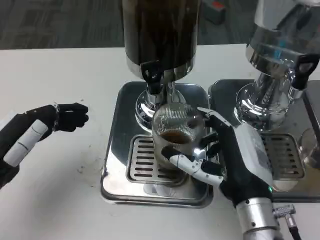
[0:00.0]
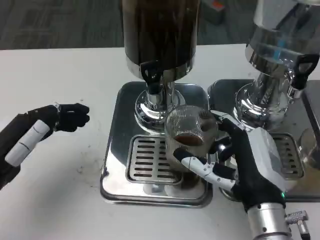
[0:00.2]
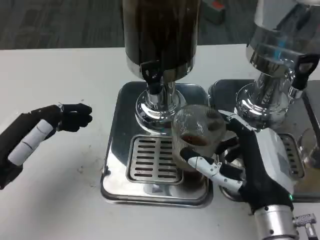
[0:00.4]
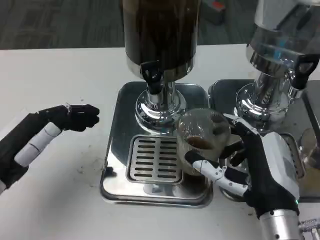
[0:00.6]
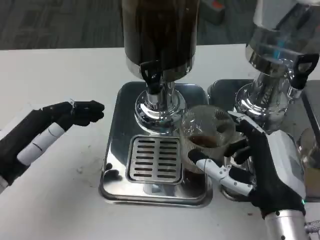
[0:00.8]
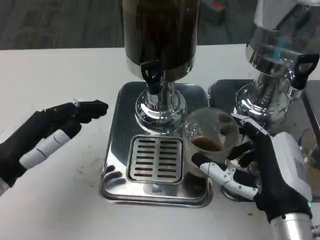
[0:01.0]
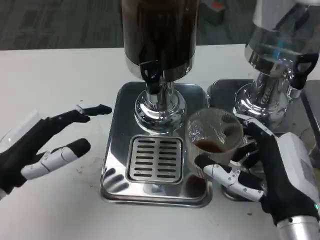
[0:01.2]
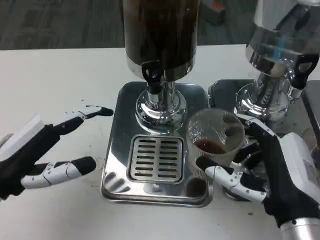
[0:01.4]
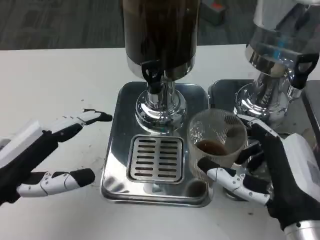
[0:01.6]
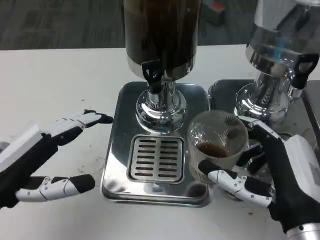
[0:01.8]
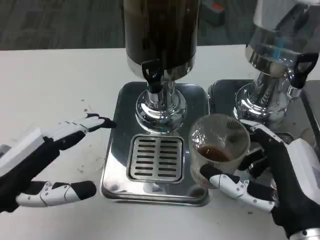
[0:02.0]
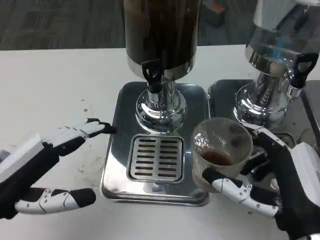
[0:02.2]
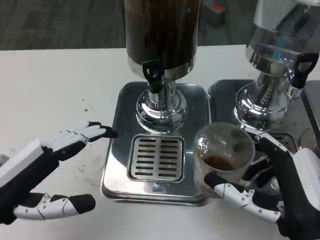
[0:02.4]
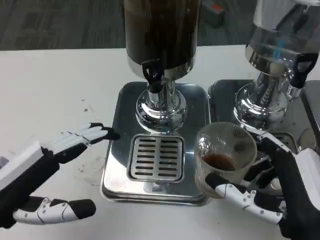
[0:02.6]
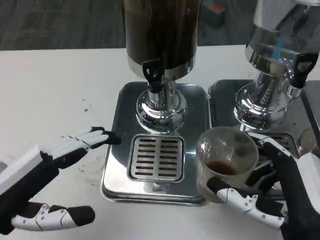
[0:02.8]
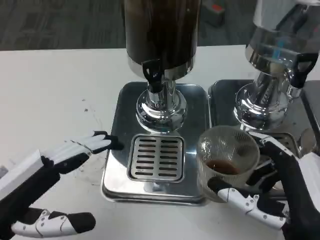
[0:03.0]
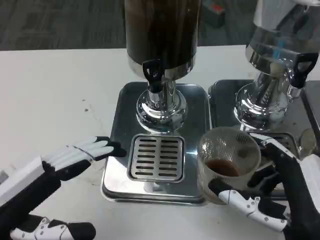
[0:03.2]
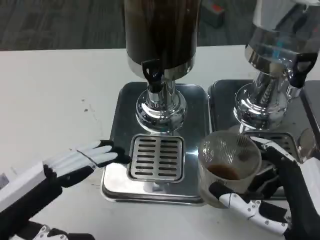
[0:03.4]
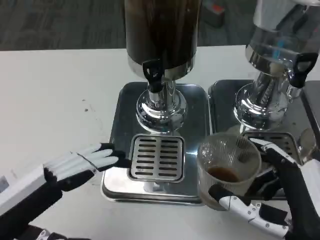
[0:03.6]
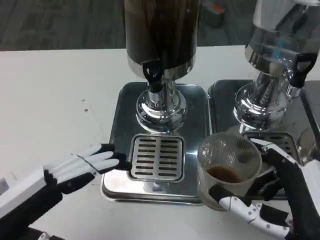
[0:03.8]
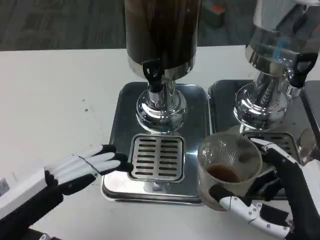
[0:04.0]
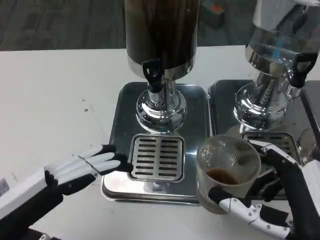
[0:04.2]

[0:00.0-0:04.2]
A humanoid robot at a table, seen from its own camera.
Task of the whole recording: Grasp the cup under the faucet to collect the drink, then remove the cup.
0:00.0 to 0:01.4: The right hand changes place by roughly 5 cm.
0:02.8 to 0:04.2: The hands move only a little.

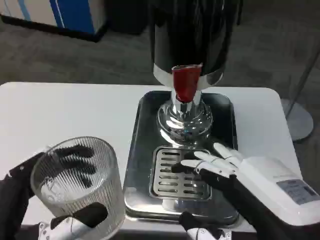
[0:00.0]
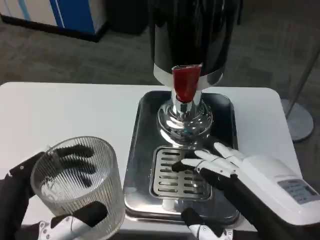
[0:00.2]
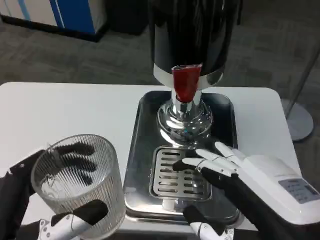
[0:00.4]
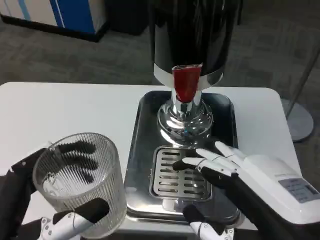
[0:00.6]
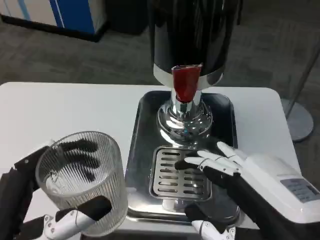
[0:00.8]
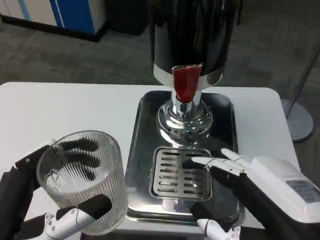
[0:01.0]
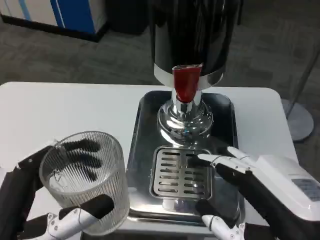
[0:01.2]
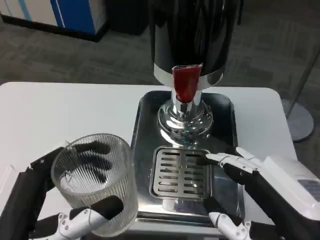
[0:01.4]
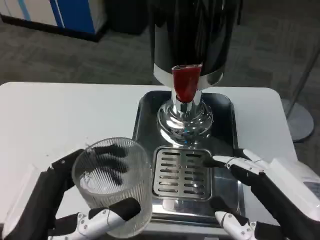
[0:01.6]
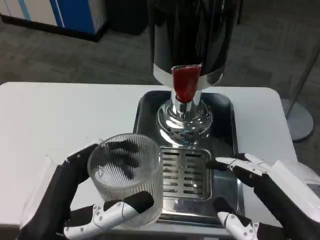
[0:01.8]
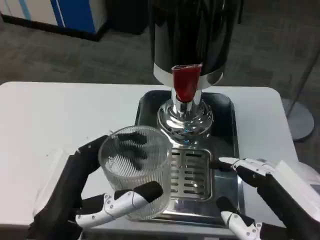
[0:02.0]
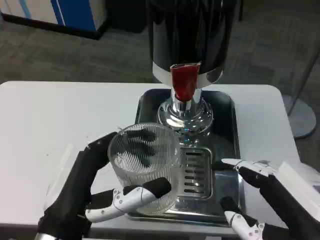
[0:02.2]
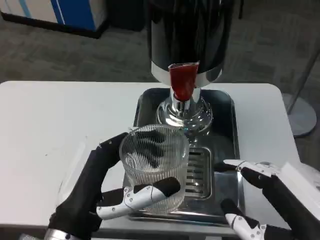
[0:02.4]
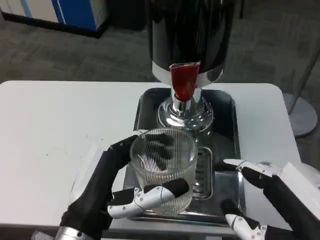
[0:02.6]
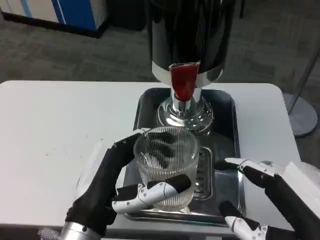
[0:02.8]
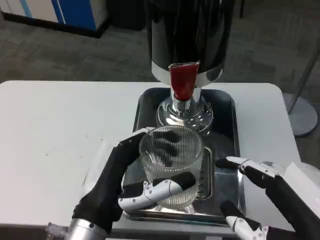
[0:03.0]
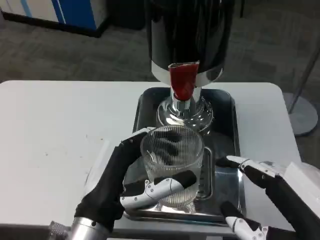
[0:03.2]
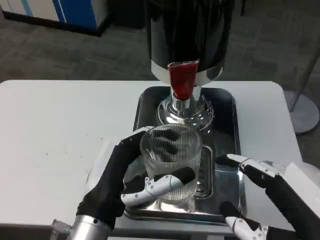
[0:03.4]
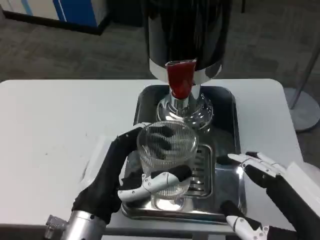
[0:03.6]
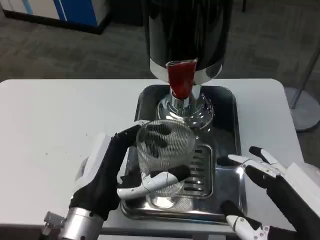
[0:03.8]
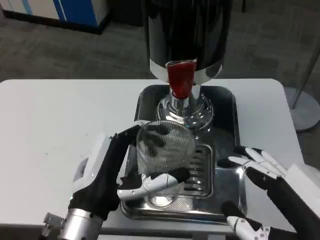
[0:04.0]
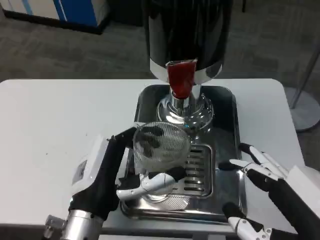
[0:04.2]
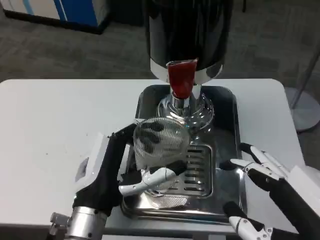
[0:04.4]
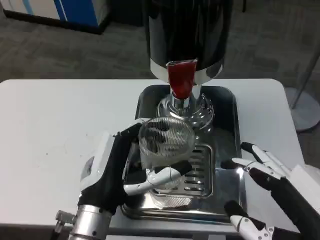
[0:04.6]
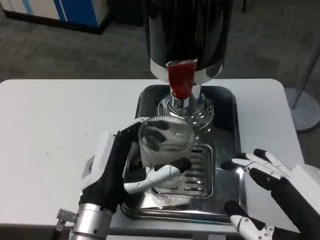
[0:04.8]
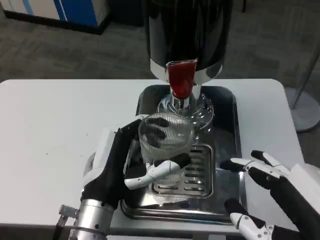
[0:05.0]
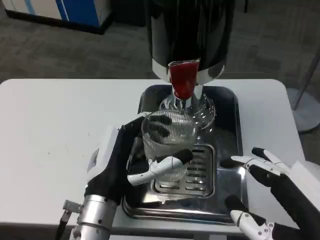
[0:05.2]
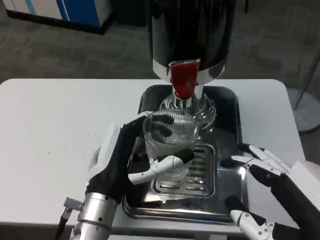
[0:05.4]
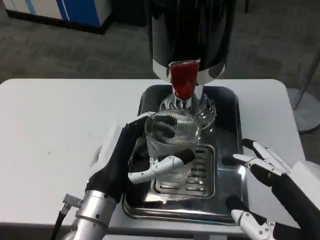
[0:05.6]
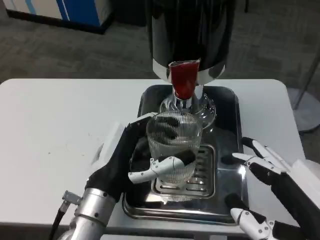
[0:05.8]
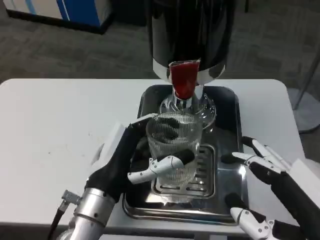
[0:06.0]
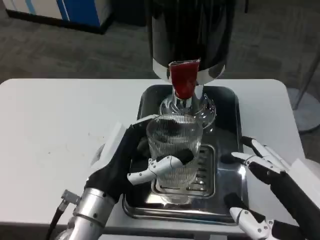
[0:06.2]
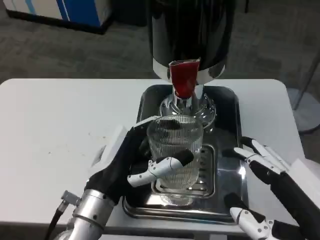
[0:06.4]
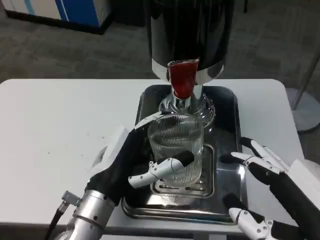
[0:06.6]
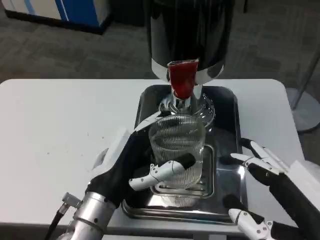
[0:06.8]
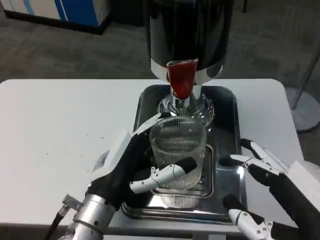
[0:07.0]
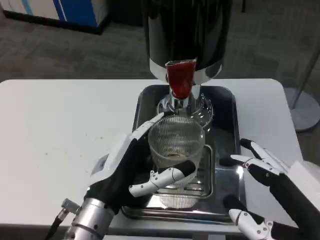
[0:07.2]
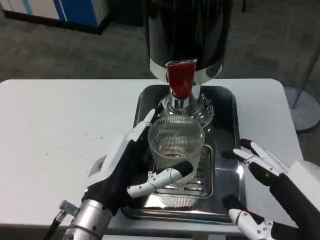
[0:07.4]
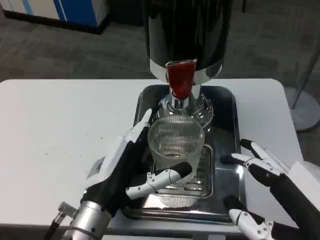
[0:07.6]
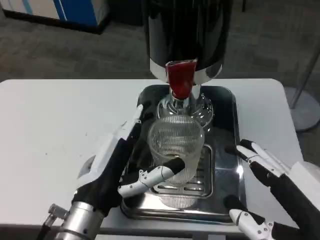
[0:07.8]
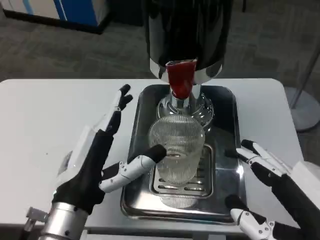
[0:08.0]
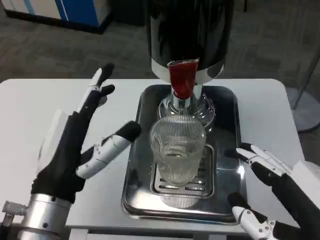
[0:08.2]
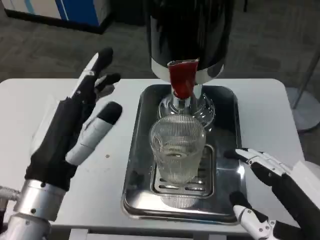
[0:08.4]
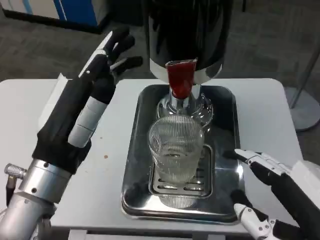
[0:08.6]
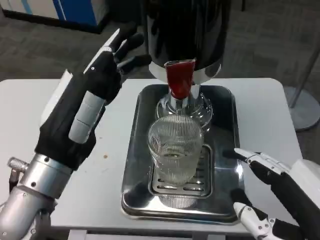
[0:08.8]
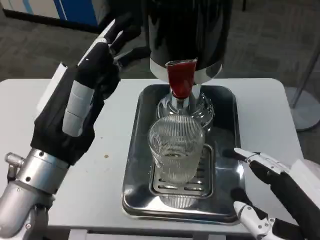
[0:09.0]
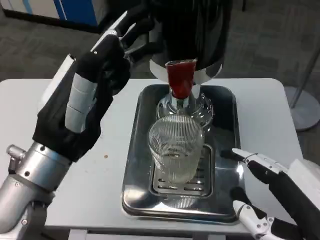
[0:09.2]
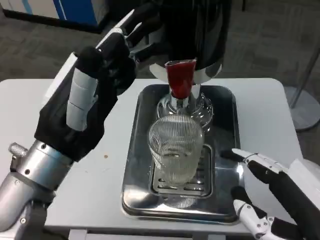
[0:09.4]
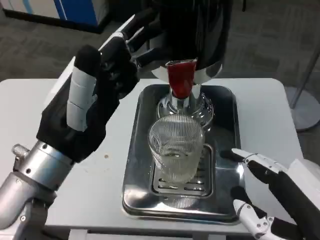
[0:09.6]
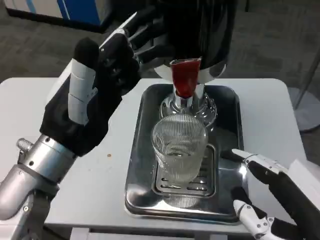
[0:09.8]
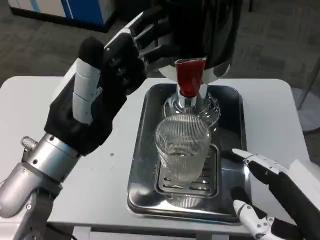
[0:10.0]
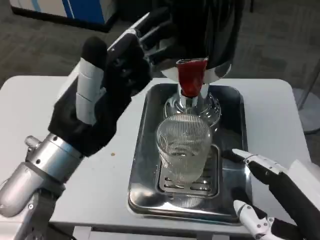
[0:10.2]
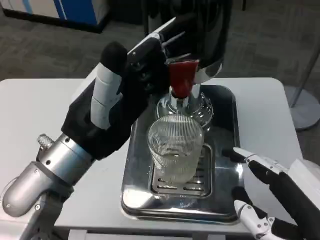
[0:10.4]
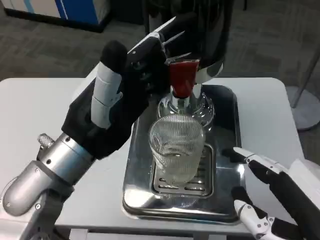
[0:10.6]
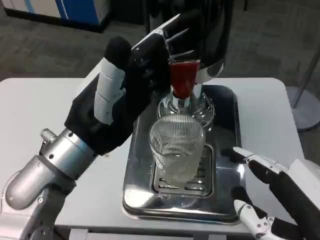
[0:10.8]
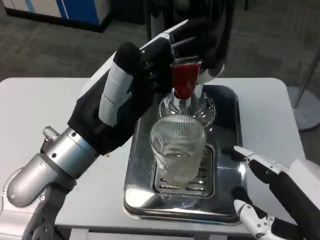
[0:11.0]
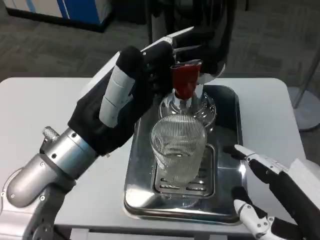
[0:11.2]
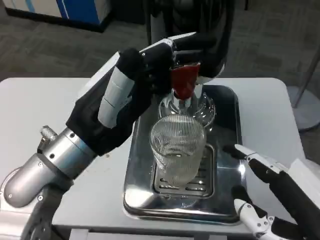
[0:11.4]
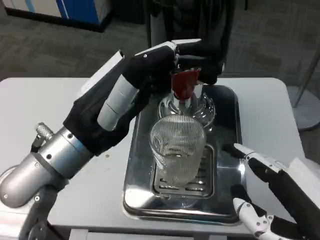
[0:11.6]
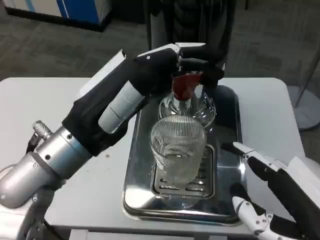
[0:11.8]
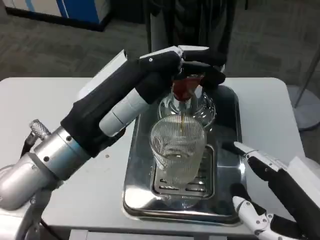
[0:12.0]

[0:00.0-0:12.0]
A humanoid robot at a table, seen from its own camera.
Task of the whole recording: Grasp the cup under the faucet to collect the drink, then remove the cup.
0:01.6 to 0:03.0: The left hand goes roughly 10 cm forward and to the right.
0:06.0 to 0:07.6: The hands move only a little.
0:07.6 to 0:09.0: The left hand moves upward, roughly 10 cm.

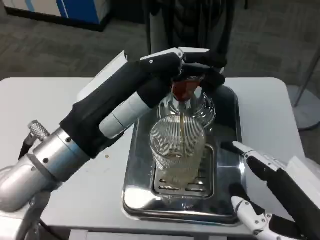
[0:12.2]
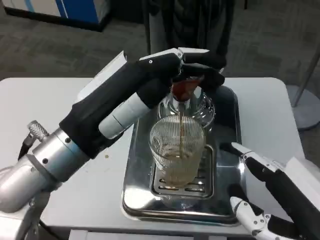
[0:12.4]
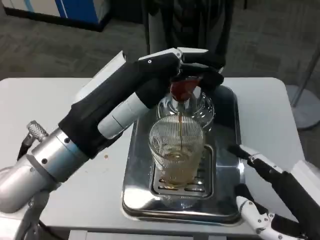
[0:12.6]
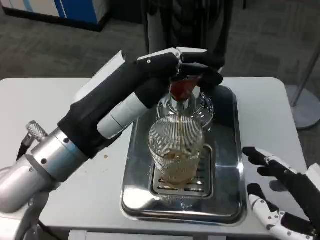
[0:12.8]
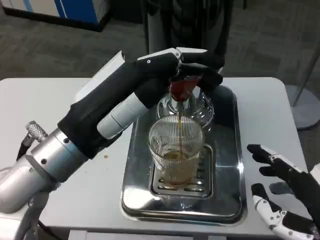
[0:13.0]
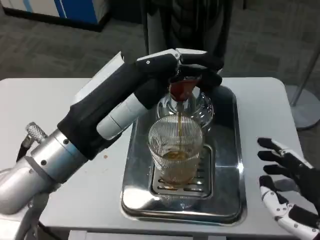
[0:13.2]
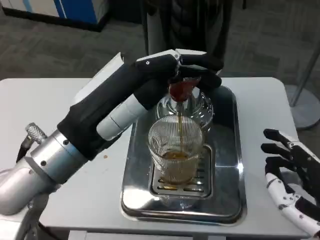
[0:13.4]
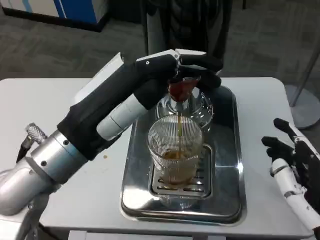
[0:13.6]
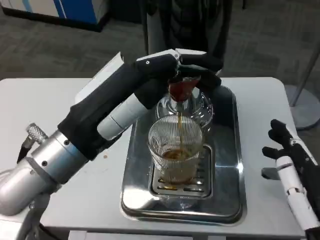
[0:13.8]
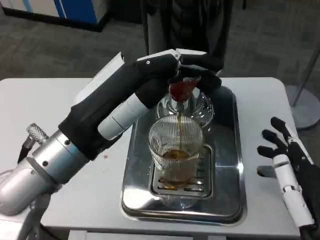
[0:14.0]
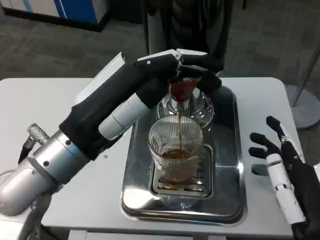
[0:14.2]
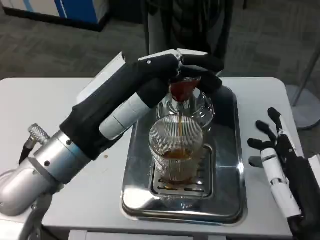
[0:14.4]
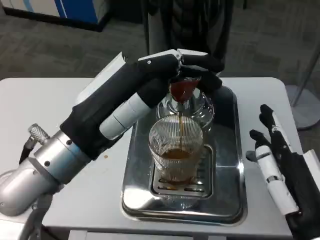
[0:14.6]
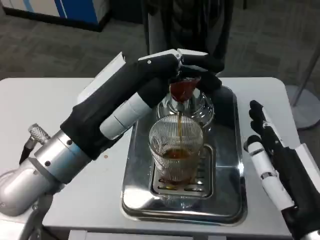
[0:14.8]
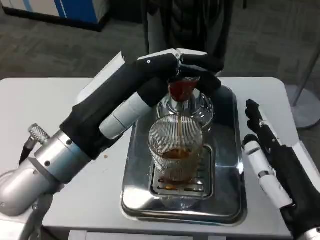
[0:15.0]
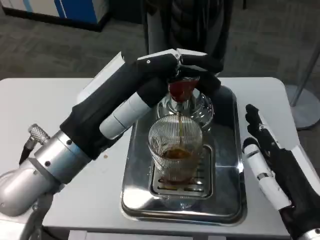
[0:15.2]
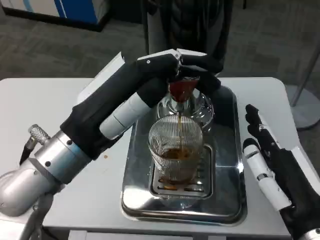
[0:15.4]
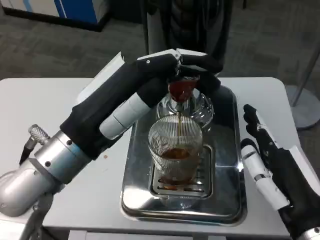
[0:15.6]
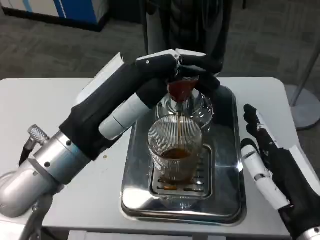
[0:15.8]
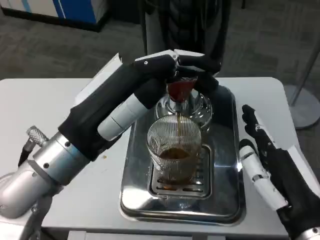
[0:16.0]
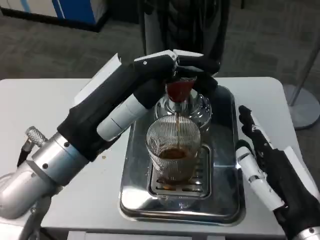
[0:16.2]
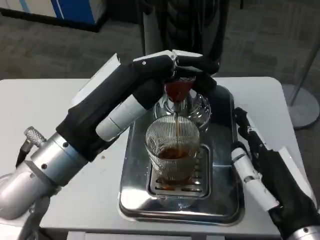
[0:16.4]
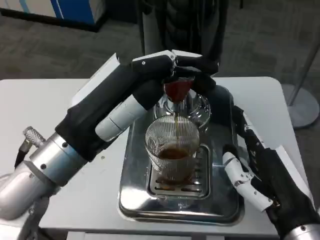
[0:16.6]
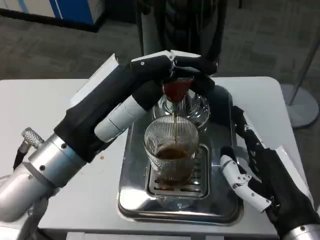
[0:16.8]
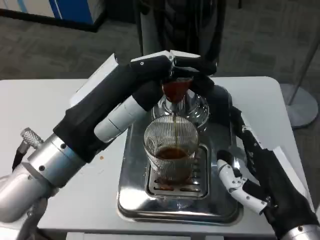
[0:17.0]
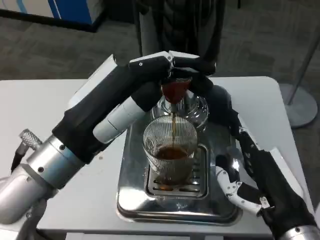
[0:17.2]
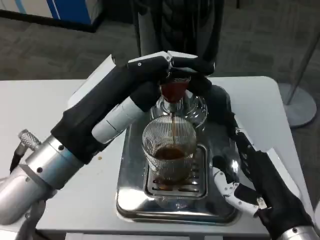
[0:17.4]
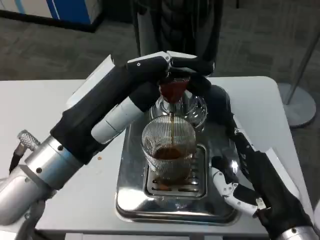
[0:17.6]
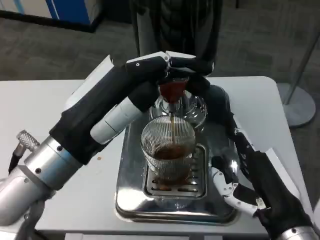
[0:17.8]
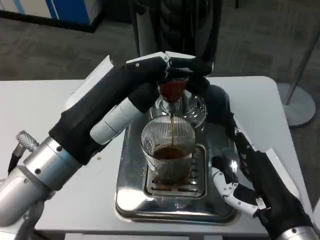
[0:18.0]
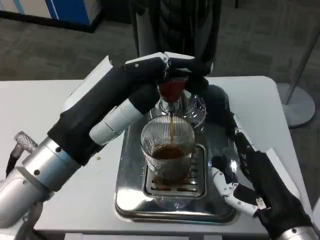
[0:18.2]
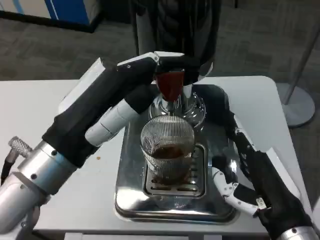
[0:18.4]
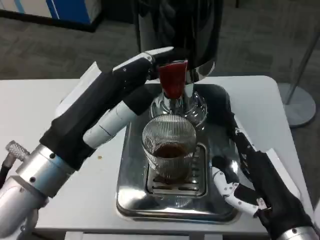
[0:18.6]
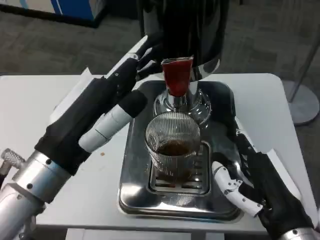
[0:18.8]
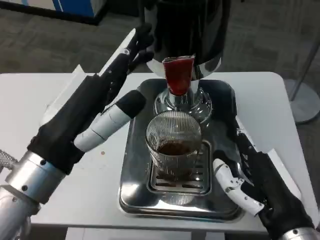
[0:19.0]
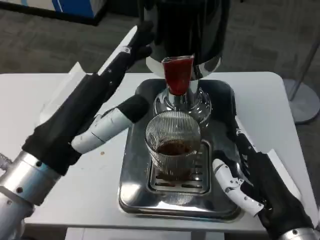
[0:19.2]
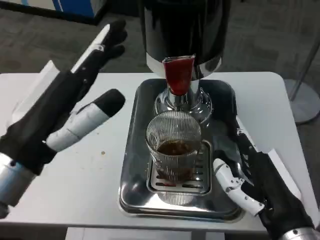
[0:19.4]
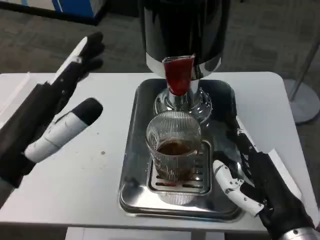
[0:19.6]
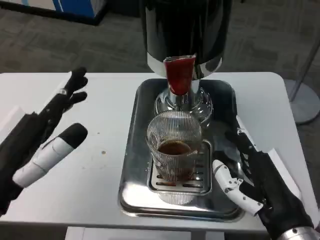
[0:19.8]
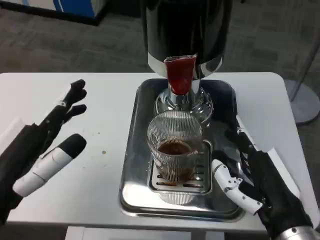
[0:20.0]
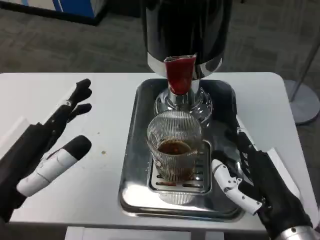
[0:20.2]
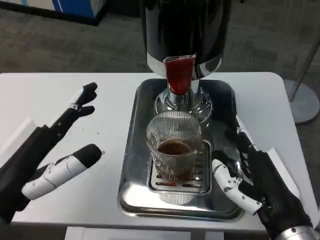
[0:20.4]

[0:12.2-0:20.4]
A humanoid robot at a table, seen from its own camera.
Task of the whole recording: Grasp the cup under the faucet to collect the drink, then remove the cup.
0:12.2 to 0:13.8: The right hand shifts approximately 5 cm downward.
0:13.8 to 0:15.4: The hands make only small movements.
0:18.8 to 0:20.4: The left hand travels to the left by some 5 cm.
